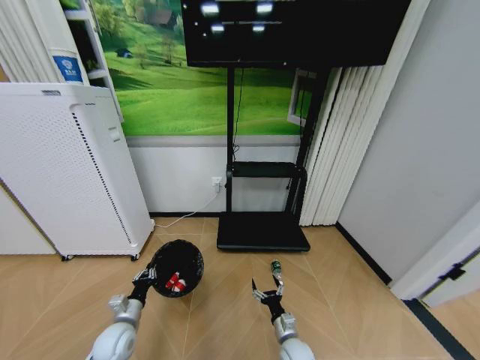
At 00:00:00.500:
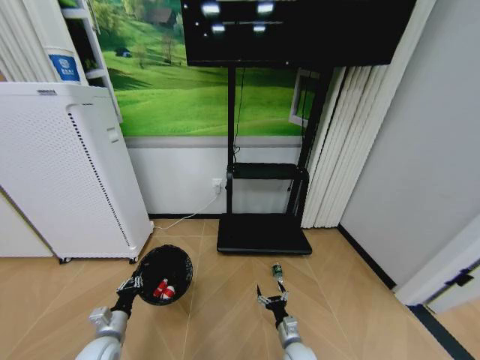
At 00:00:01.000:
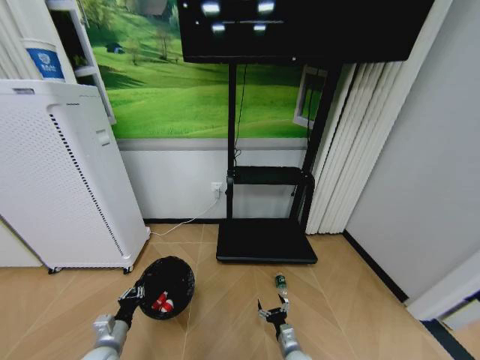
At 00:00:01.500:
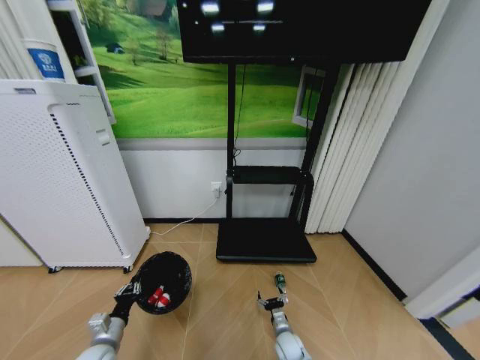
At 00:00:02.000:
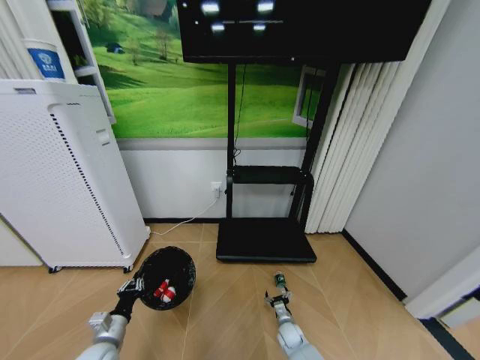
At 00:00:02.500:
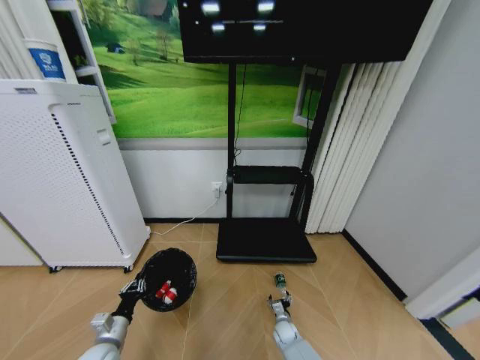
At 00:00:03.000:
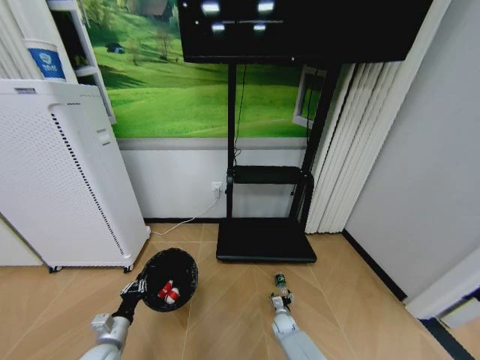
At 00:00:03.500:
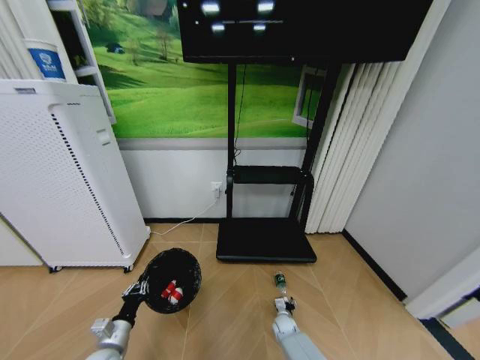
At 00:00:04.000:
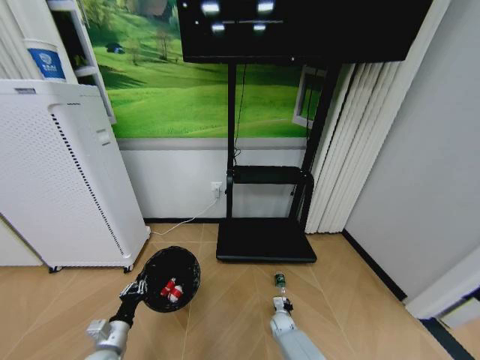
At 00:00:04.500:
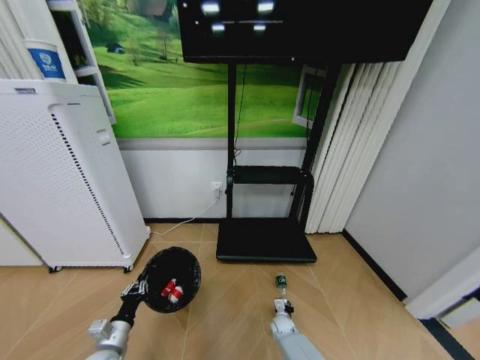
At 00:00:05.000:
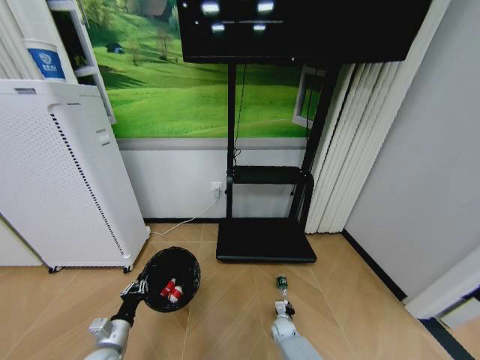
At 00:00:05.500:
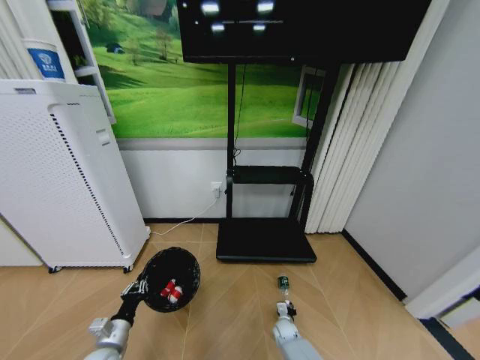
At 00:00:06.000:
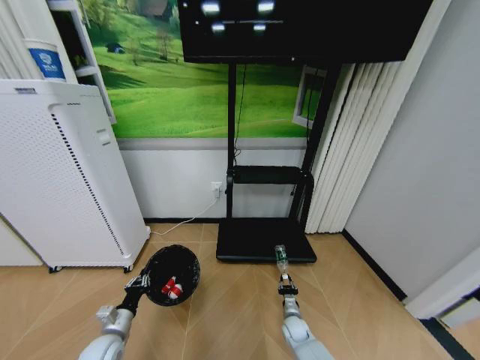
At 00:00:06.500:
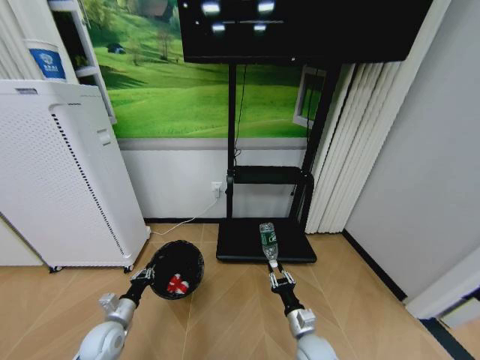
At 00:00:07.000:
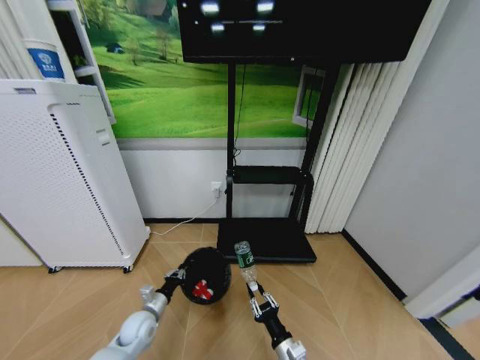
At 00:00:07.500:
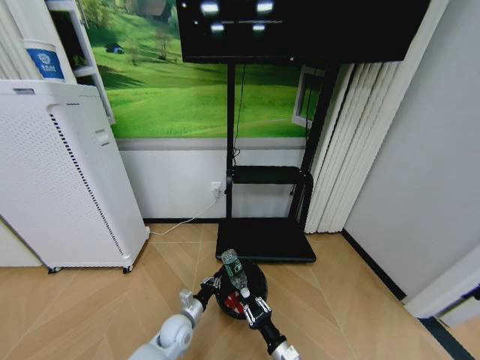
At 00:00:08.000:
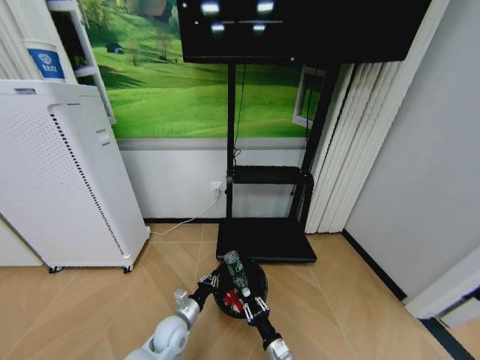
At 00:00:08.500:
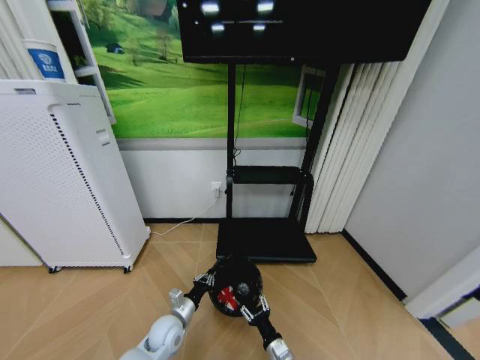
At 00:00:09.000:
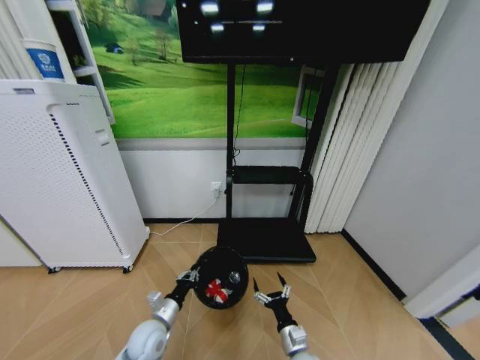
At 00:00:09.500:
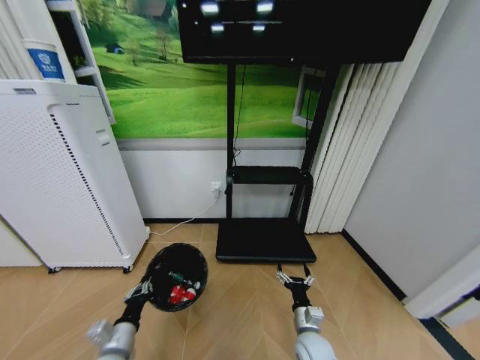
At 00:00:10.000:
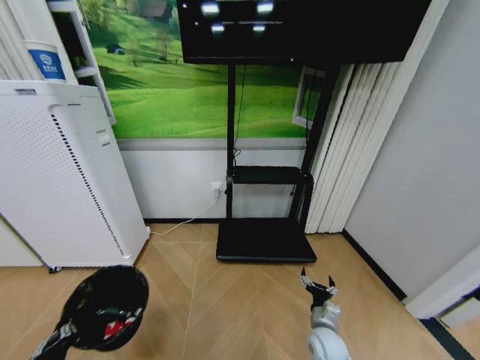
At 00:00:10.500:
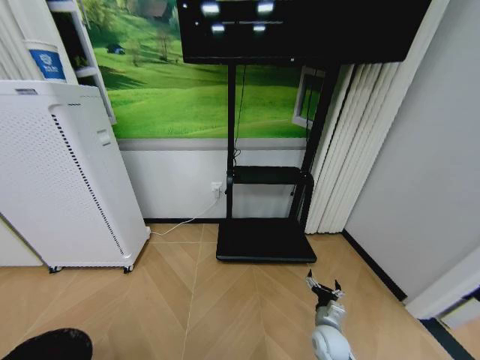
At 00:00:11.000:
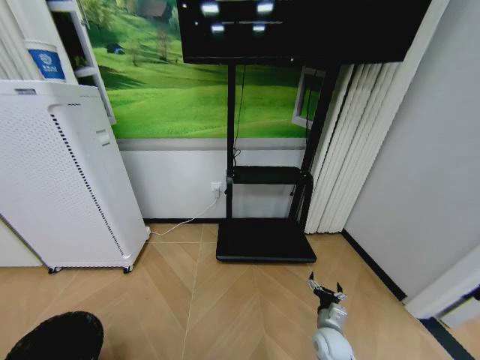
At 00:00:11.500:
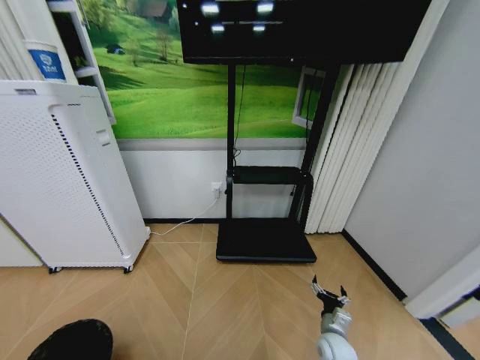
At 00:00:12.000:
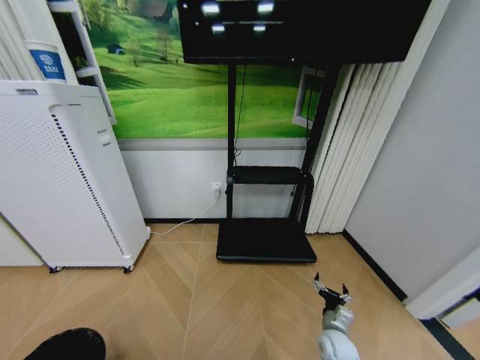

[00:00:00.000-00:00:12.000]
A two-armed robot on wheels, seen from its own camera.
Task of the whole recording: Pick up the trash bin and place the garbage on the floor into it.
00:00:00.000 to 00:00:02.000: The left gripper ends up about 5 cm from where it was, while the right gripper moves downward and forward, about 10 cm.
00:00:02.000 to 00:00:04.000: The right gripper changes place by some 5 cm, and closes its fingers.
00:00:04.000 to 00:00:06.000: The right gripper ends up roughly 5 cm from where it was.
00:00:06.000 to 00:00:08.000: The right gripper heads backward, upward and to the left, covering some 20 cm; the left gripper heads to the right, covering about 15 cm.
00:00:08.000 to 00:00:10.000: The left gripper shifts about 30 cm backward, to the left and upward. Meanwhile the right gripper heads to the right and forward, covering approximately 15 cm, and opens its fingers.
00:00:10.000 to 00:00:12.000: The right gripper changes place by approximately 5 cm. The left gripper heads downward, backward and to the left, covering about 15 cm.

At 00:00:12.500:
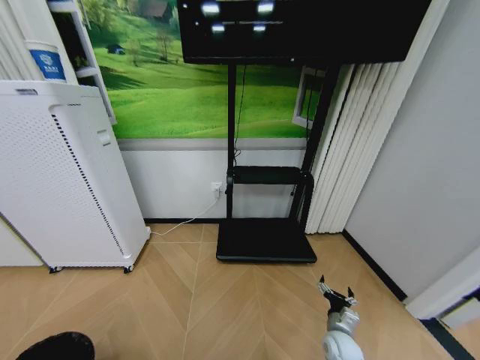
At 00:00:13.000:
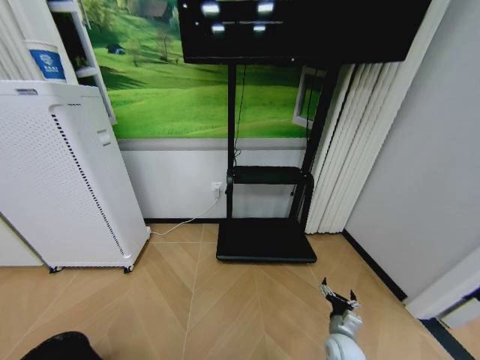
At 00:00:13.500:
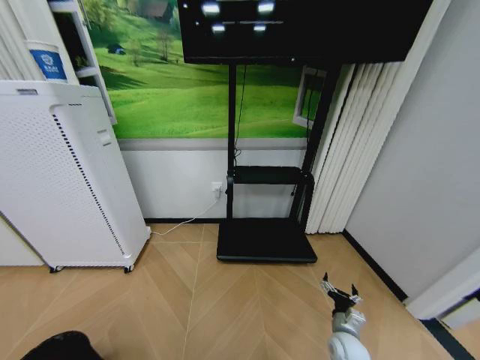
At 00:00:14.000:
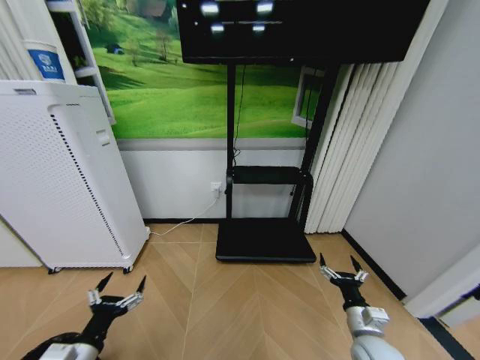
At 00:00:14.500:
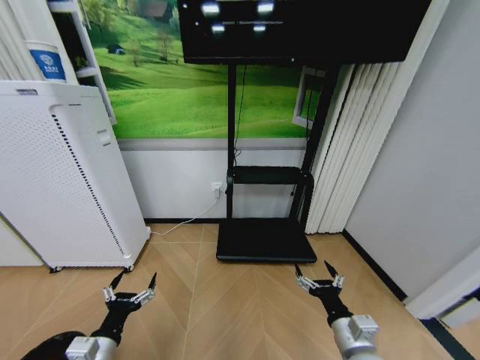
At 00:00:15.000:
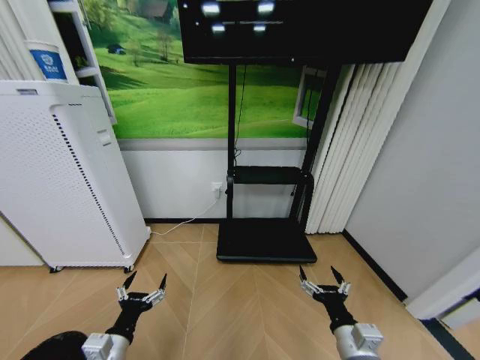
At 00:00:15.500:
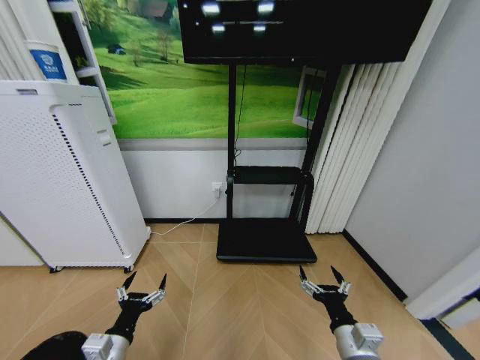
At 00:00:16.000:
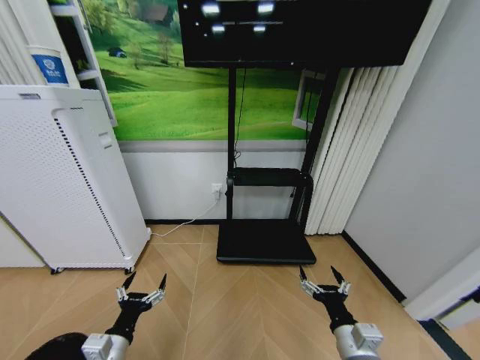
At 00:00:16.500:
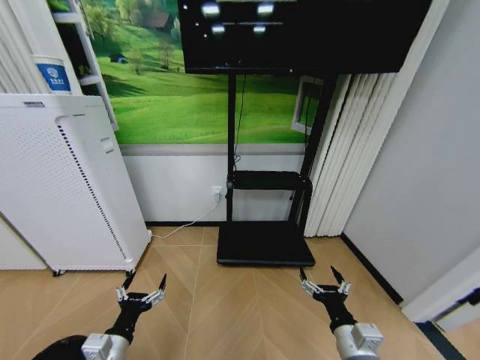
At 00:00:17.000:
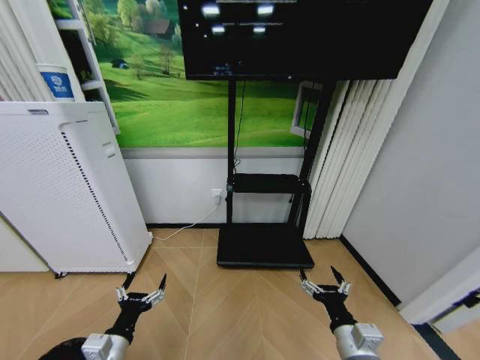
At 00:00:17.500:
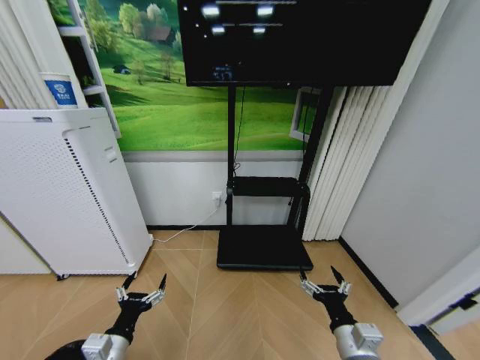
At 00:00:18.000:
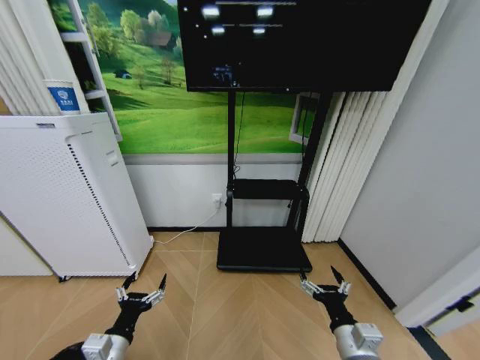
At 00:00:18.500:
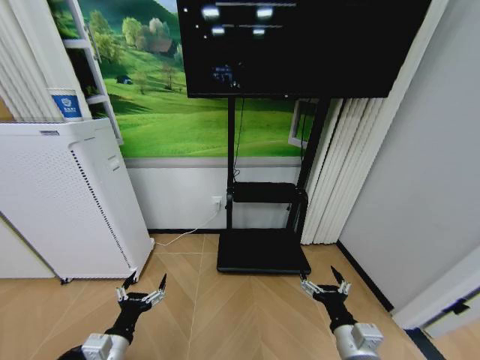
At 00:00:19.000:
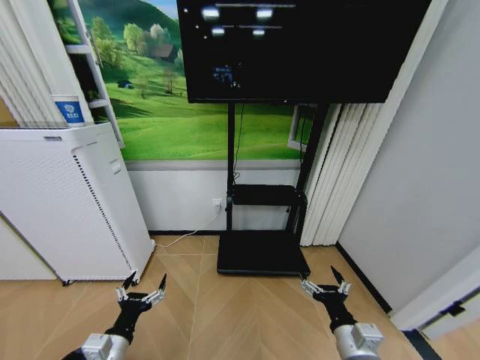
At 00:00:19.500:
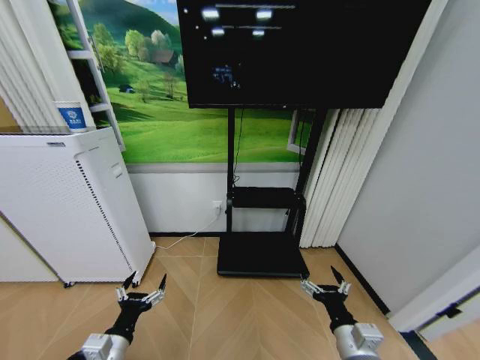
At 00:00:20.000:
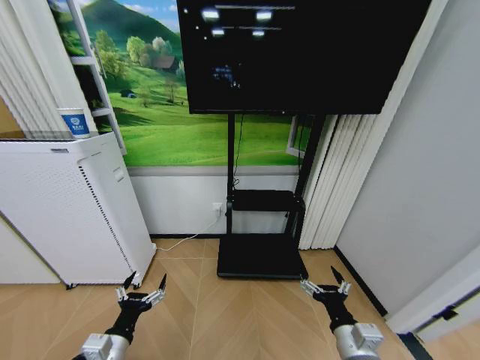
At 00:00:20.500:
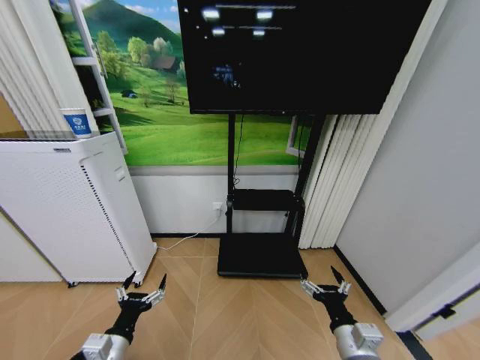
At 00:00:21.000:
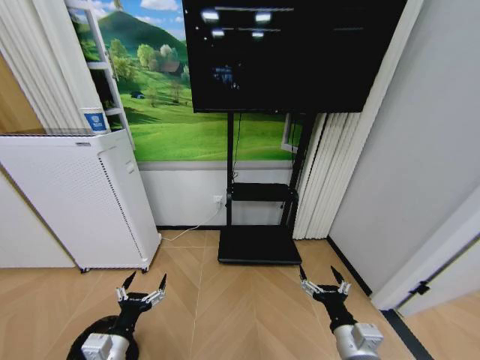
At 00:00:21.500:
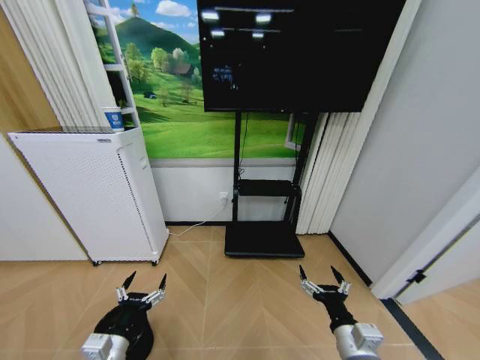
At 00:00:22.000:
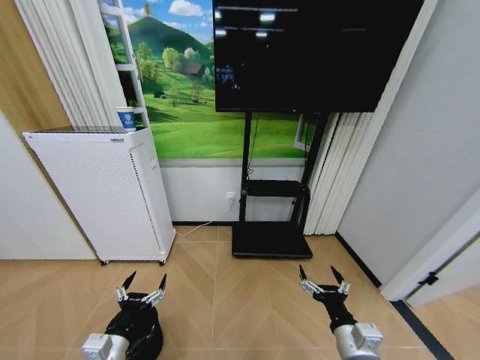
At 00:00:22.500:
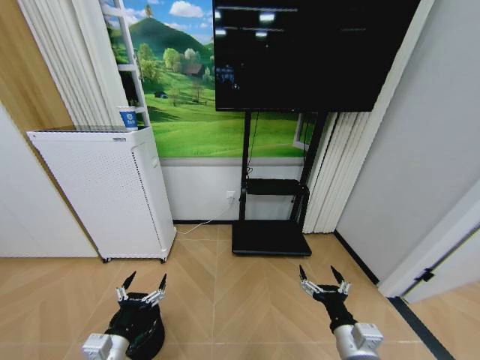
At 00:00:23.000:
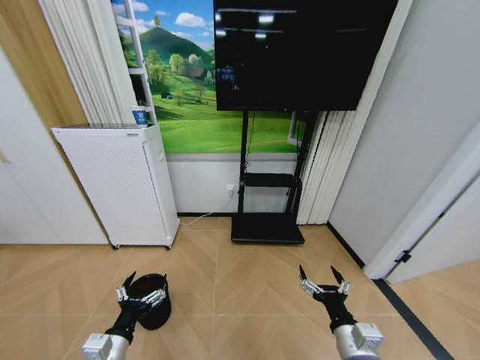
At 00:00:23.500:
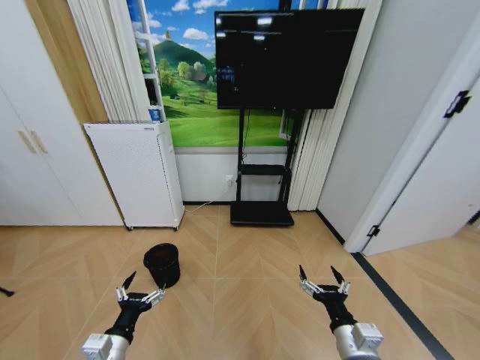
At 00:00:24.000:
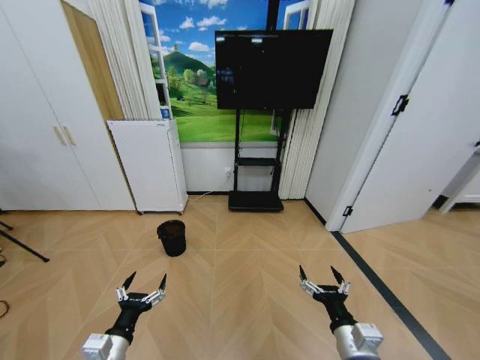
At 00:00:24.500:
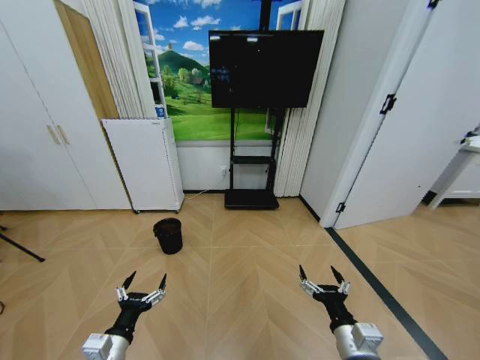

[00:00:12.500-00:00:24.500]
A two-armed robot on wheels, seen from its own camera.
Task of the whole recording: Pick up the trash bin and place the garbage on the floor into it.
00:00:12.500 to 00:00:14.500: The left gripper shifts approximately 25 cm forward, upward and to the right, and opens up; the right gripper goes roughly 20 cm upward and backward.
00:00:14.500 to 00:00:16.500: The grippers move only a little.
00:00:18.500 to 00:00:20.500: Neither gripper changes place.

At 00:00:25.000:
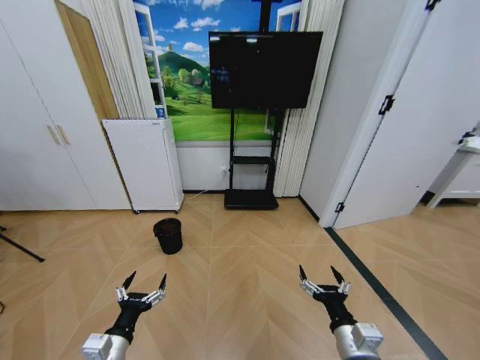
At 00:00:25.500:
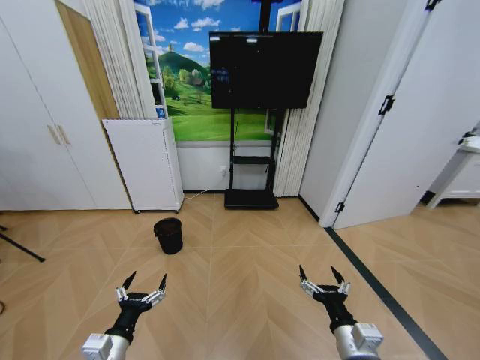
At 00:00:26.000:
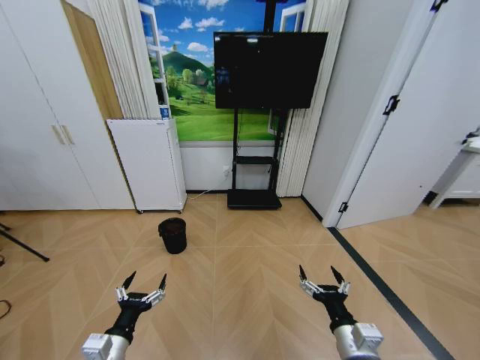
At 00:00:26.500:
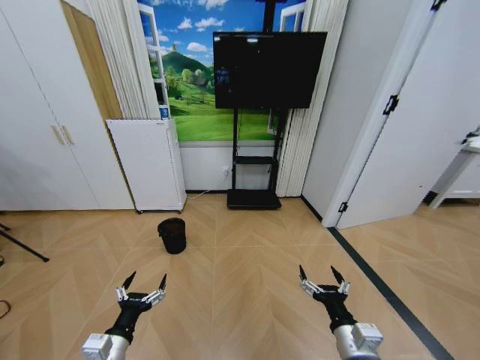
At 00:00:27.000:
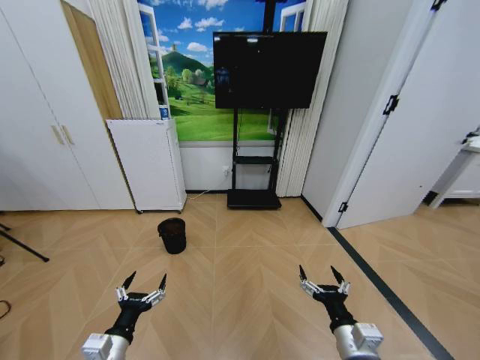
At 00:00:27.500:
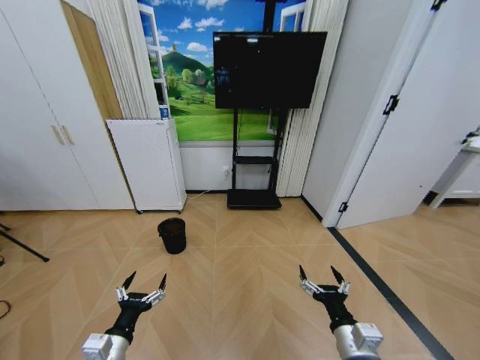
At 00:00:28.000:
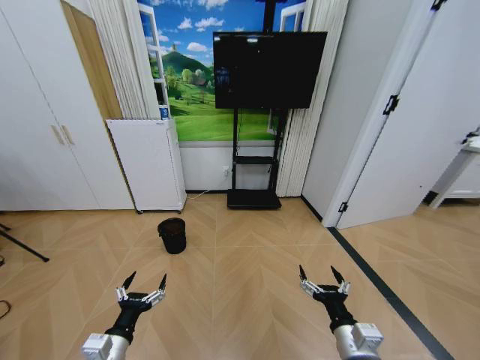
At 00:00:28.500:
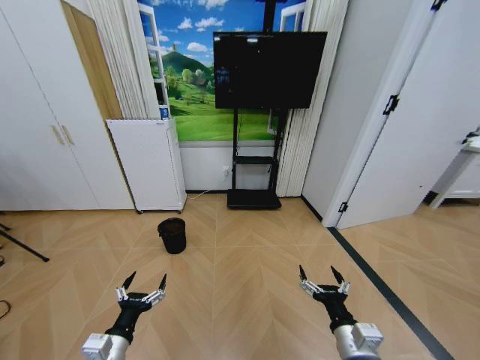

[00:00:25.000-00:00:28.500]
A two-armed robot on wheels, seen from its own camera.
Task of the whole recording: Pick up the trash bin and place the garbage on the floor into it.
00:00:25.000 to 00:00:28.500: Both grippers stay put.
